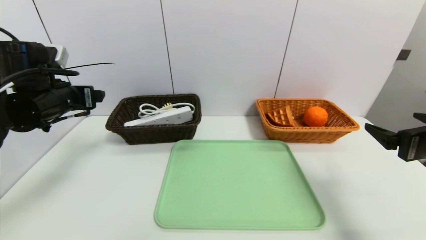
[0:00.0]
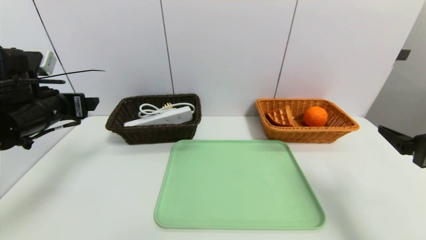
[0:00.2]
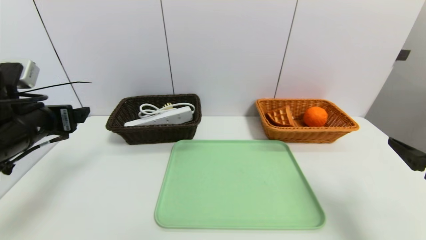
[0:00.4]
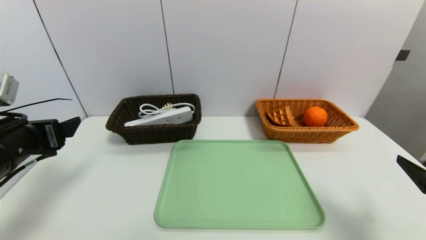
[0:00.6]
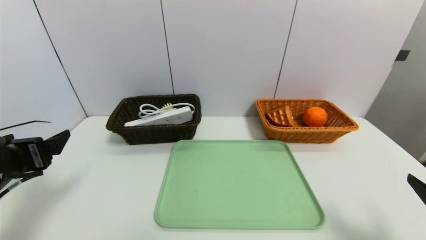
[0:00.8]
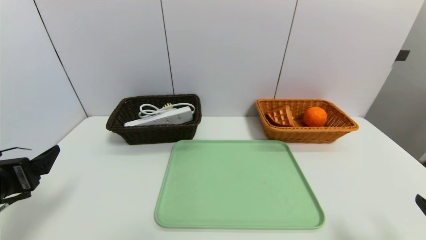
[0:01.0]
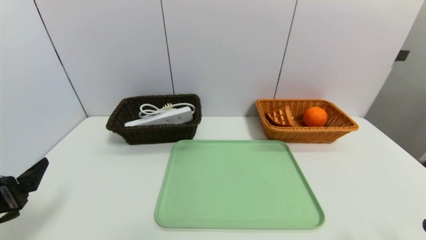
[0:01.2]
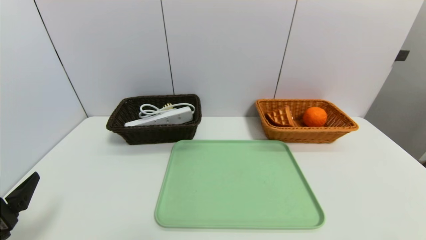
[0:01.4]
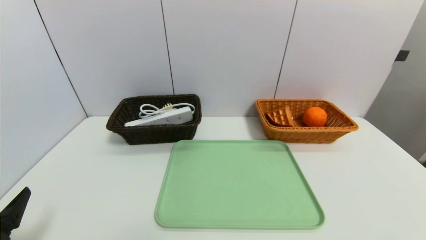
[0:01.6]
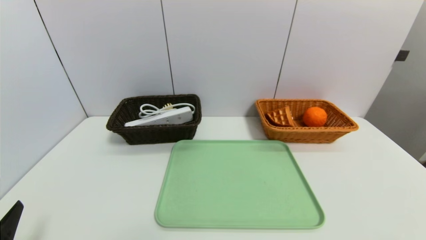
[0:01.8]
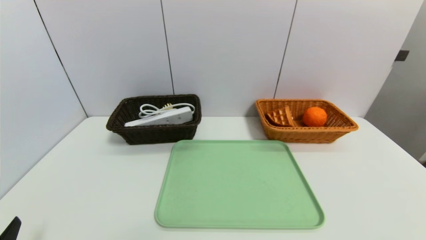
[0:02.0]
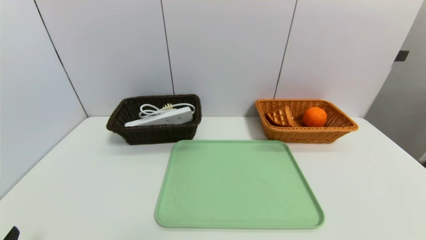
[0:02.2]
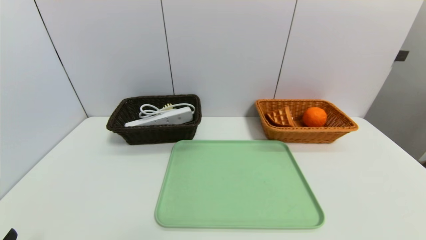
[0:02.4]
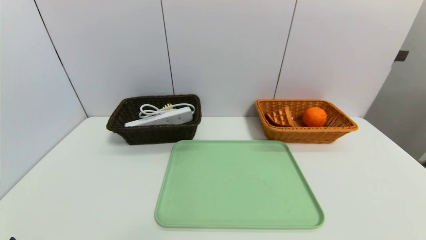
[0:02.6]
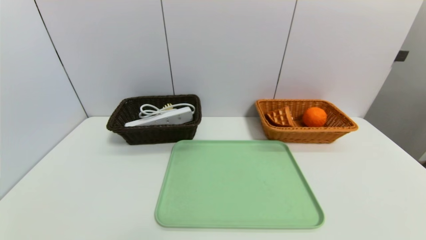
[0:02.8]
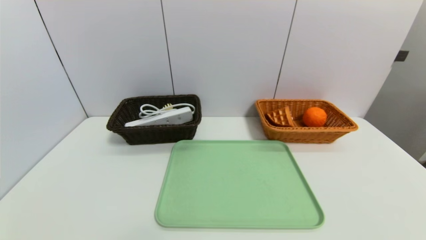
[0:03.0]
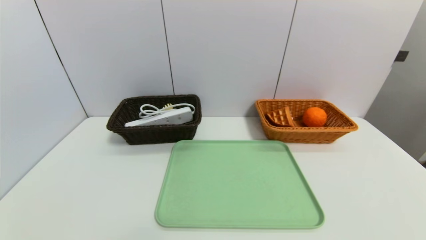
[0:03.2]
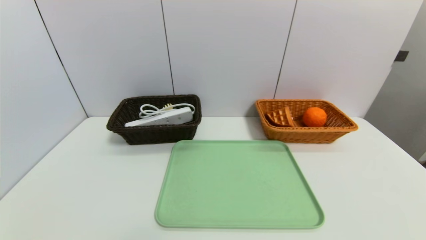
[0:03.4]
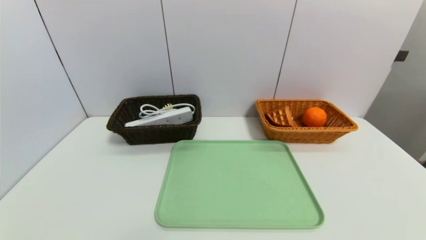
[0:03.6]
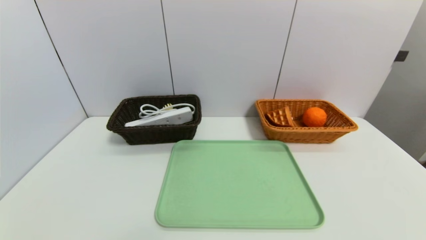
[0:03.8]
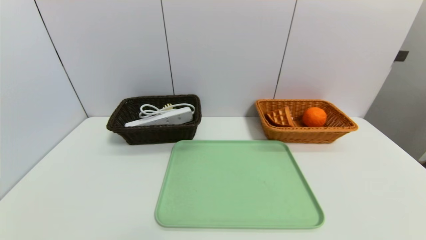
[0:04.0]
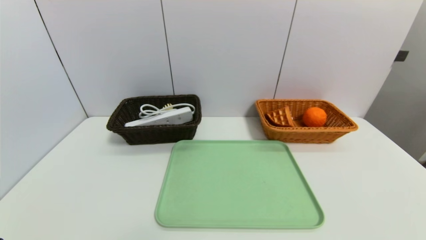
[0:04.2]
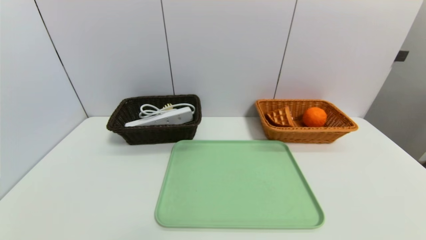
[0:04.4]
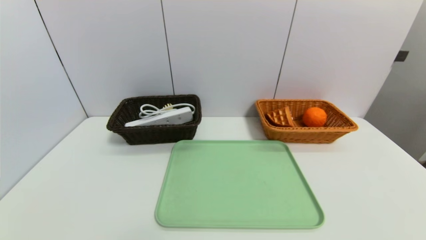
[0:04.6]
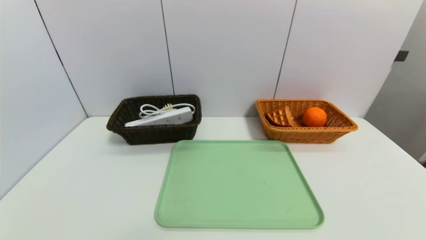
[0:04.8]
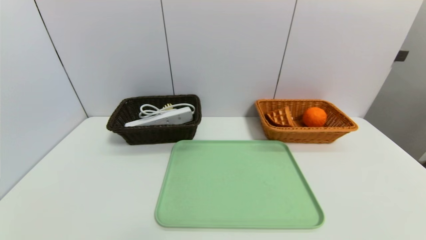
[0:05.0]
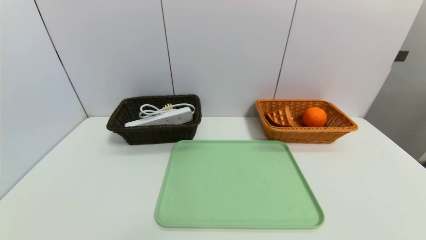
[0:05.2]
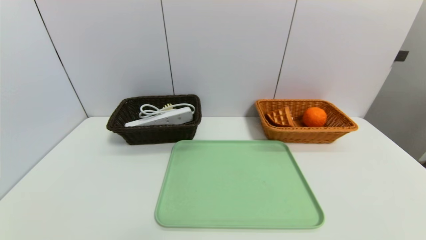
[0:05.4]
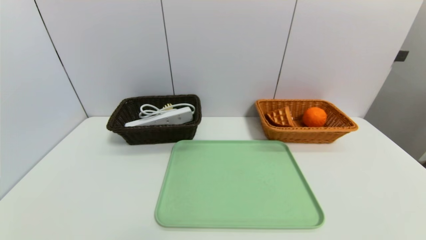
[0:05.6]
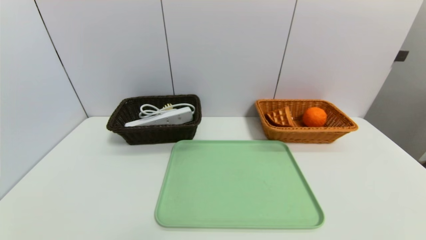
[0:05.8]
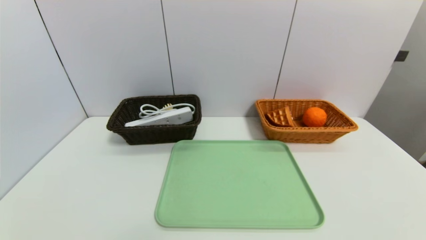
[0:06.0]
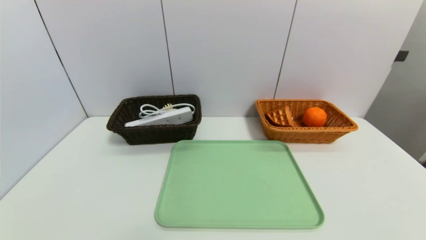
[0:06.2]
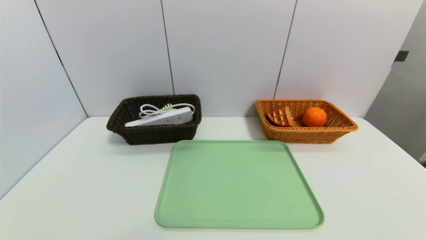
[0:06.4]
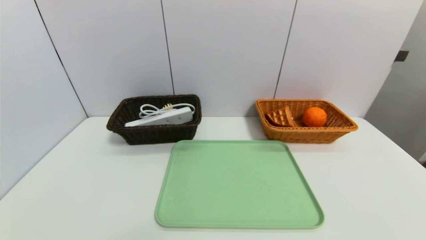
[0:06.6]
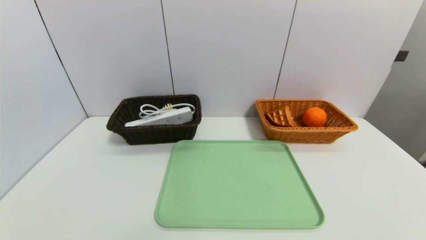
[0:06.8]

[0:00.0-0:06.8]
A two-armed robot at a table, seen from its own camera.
Task of the whole recording: place the food in the right basket with the right gripper, and place the non food items in the left basket with the left gripper.
0:00.0 to 0:01.4: The two grippers go some 20 cm backward and downward.
0:01.4 to 0:02.8: The left gripper moves backward and downward, about 10 cm.
